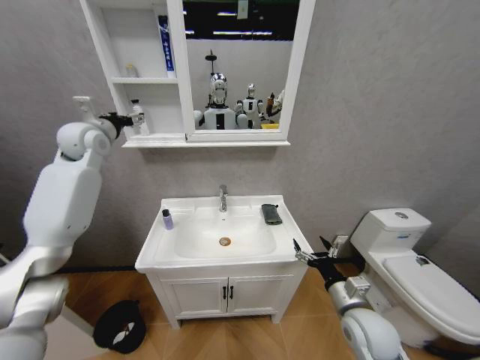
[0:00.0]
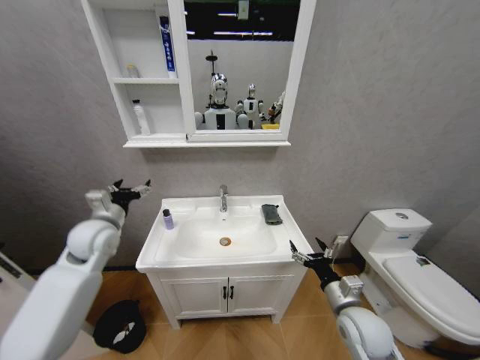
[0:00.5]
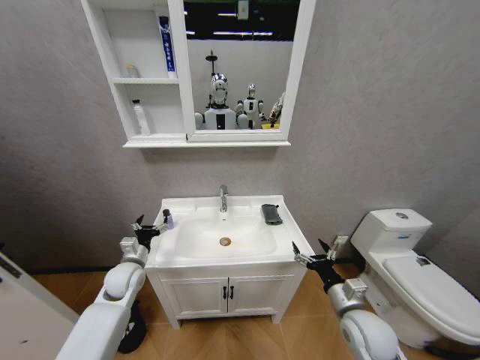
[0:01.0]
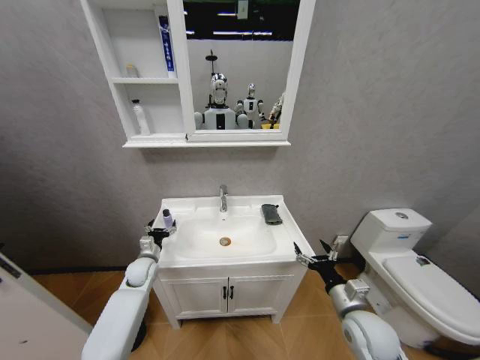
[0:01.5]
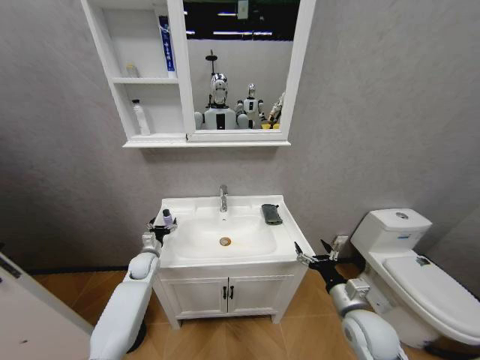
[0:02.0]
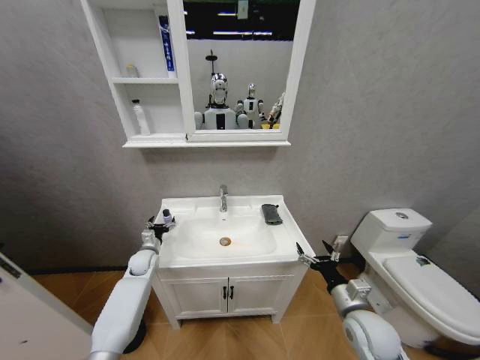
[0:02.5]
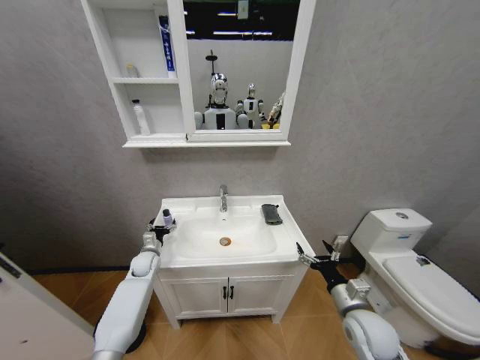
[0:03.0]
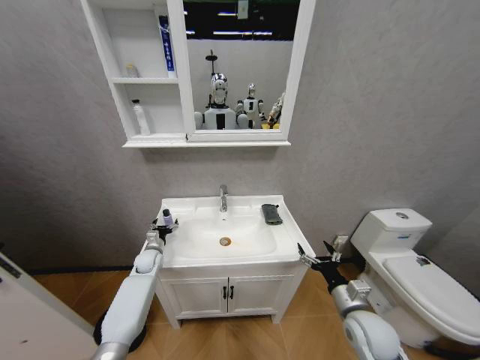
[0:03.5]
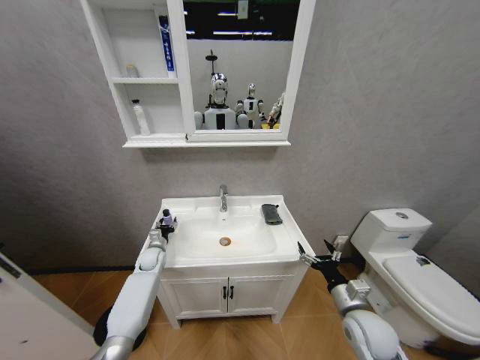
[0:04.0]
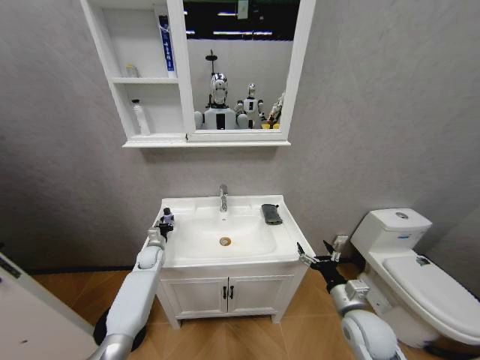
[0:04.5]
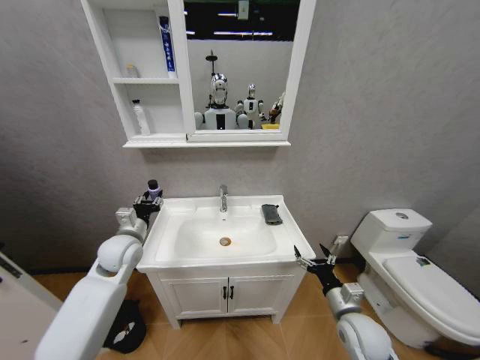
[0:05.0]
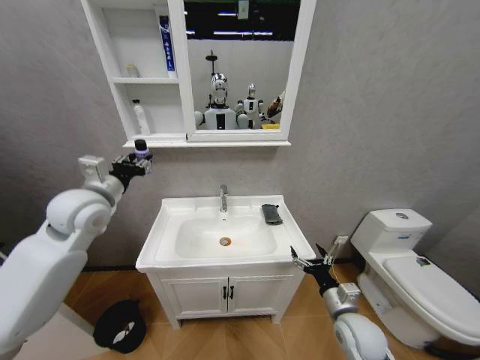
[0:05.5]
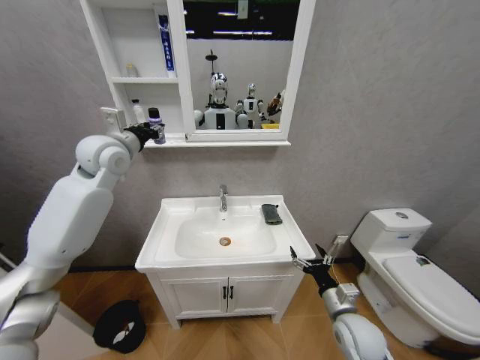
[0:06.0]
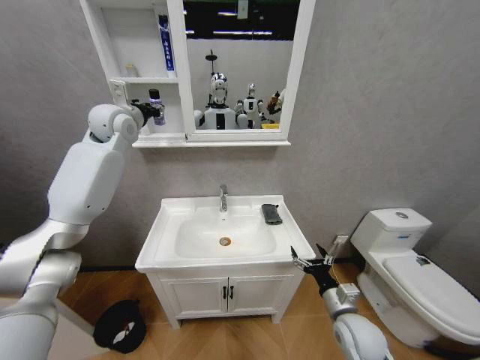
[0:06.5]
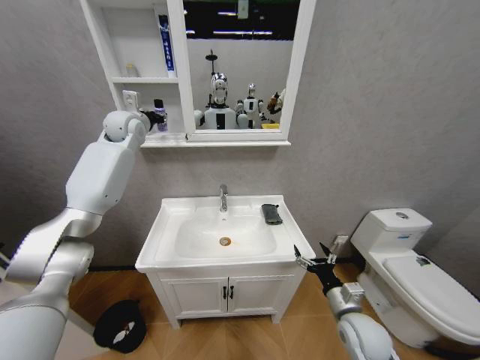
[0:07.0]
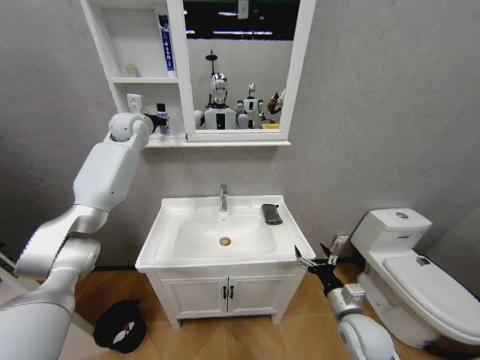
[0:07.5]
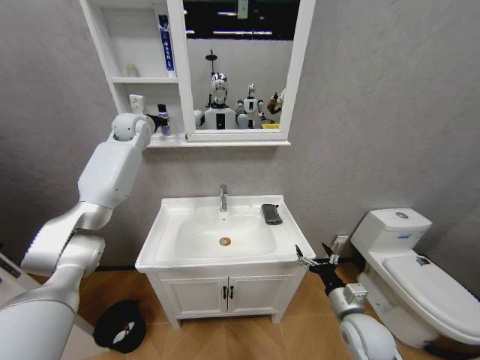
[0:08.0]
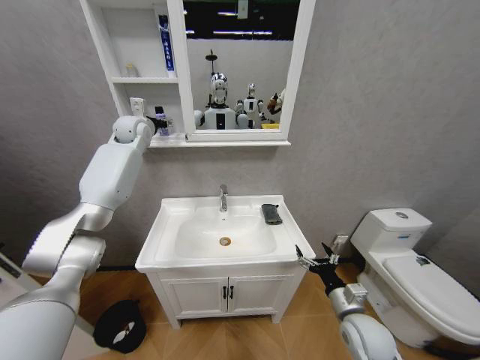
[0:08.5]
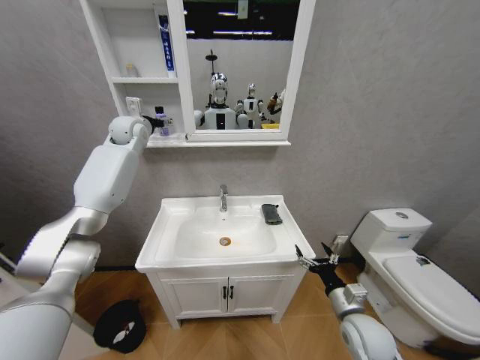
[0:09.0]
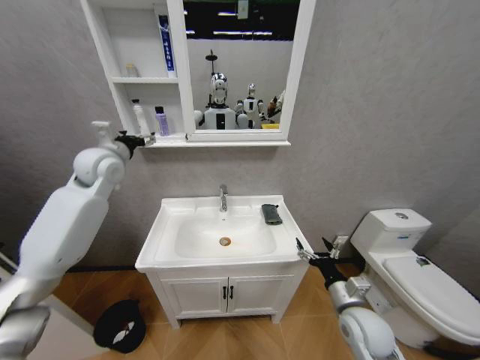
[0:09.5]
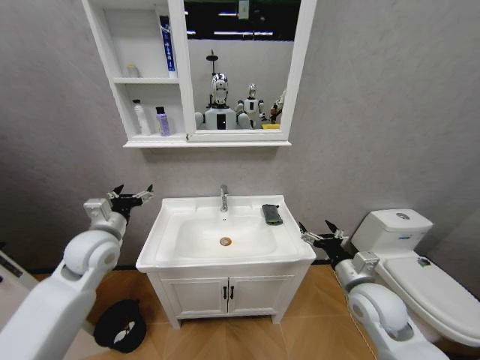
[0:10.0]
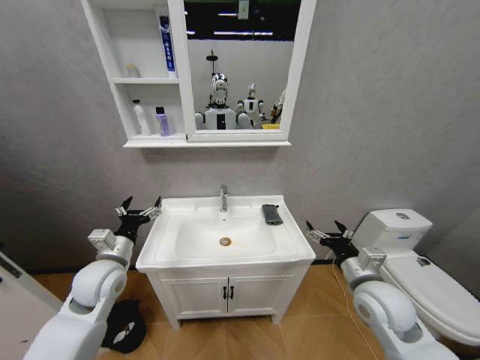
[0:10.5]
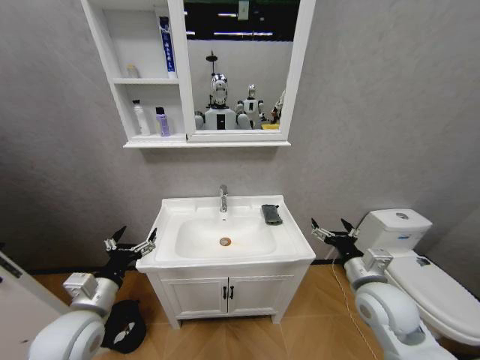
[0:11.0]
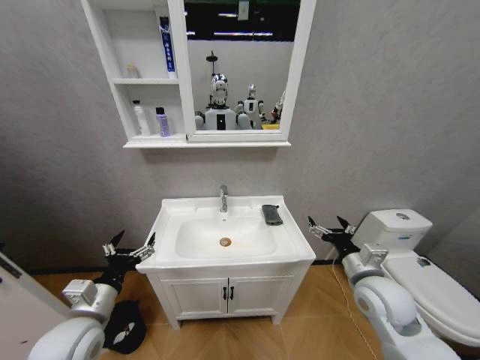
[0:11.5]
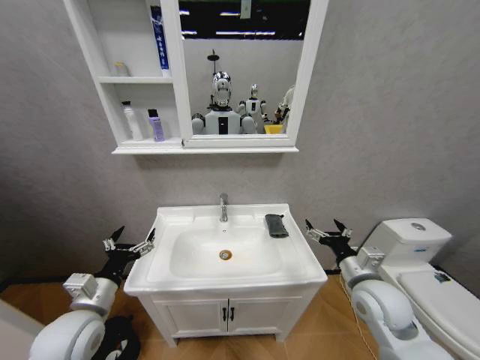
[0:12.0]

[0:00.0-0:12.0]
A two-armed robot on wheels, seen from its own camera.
Task of the whole recording: Move facial cleanser and shampoo from washbasin to cabinet, then wipe washbasin with towel.
0:00.0 to 0:02.0: The left gripper shifts some 40 cm downward.
0:02.0 to 0:04.0: The left gripper closes.
0:04.0 to 0:06.0: The left gripper moves upward, about 40 cm, and closes.
0:06.0 to 0:08.0: The left gripper shifts some 15 cm forward.
0:08.0 to 0:10.0: The left gripper shifts roughly 35 cm backward and downward, and opens. Meanwhile the right gripper shifts about 10 cm upward.
0:10.0 to 0:12.0: The left gripper is displaced backward and downward by some 15 cm.

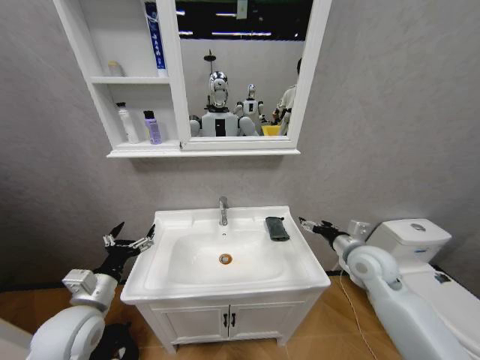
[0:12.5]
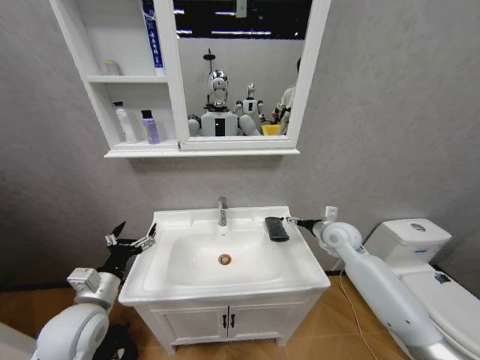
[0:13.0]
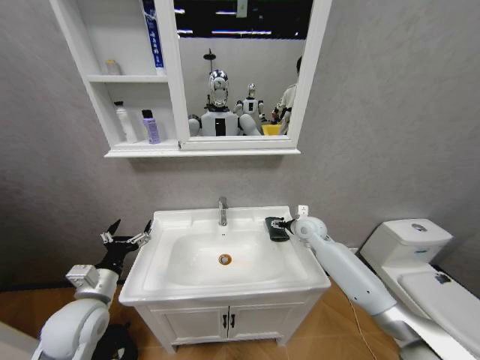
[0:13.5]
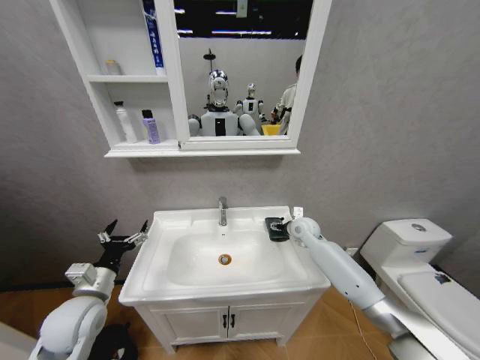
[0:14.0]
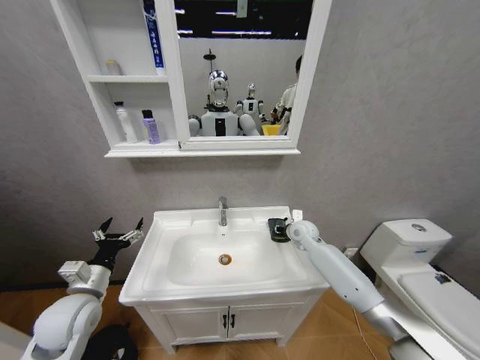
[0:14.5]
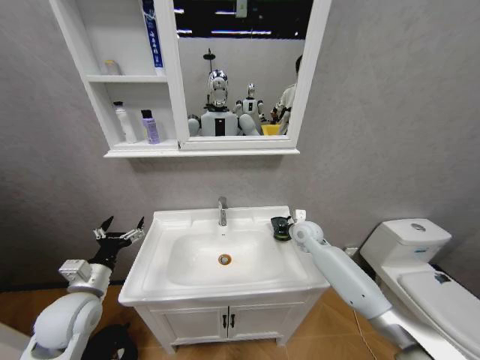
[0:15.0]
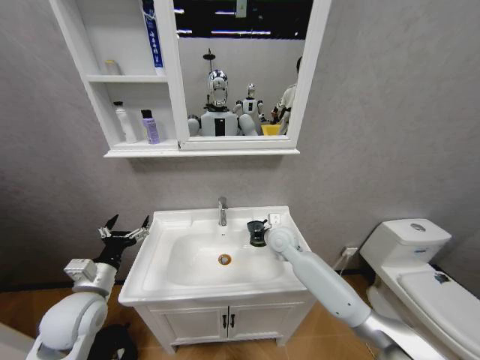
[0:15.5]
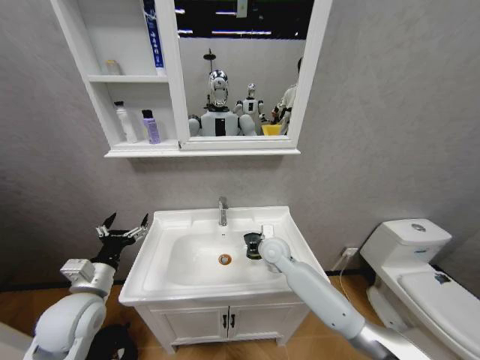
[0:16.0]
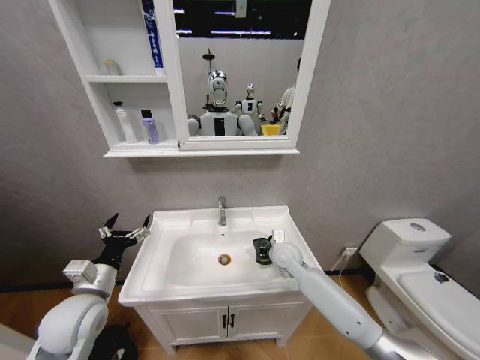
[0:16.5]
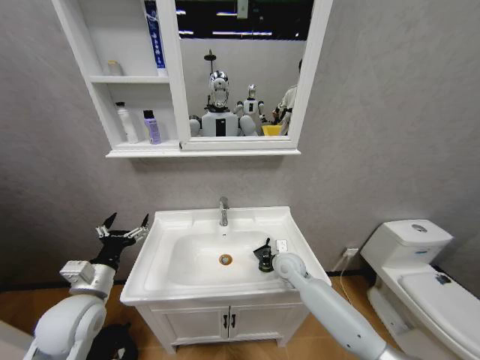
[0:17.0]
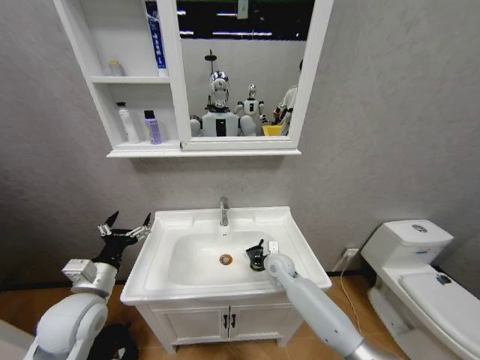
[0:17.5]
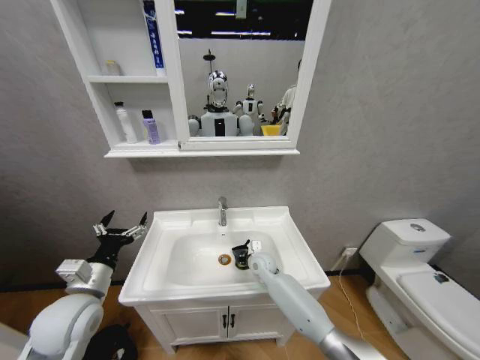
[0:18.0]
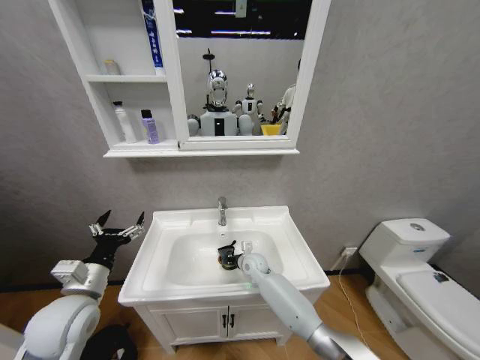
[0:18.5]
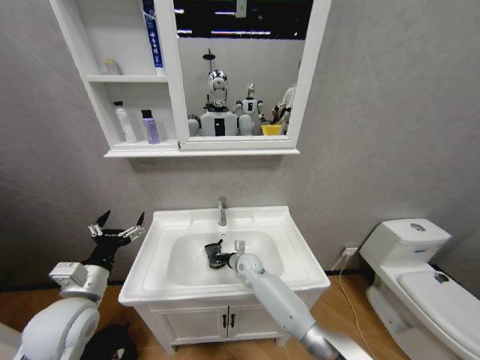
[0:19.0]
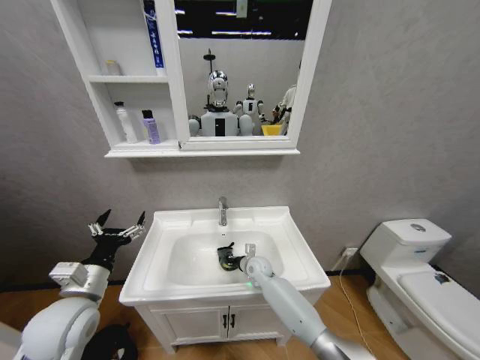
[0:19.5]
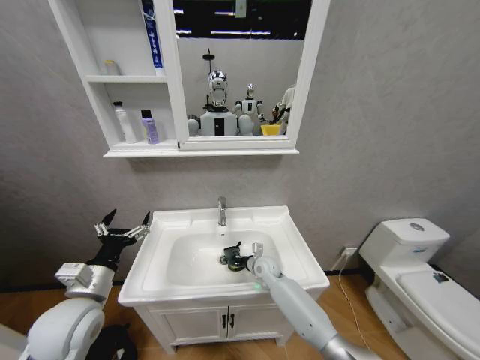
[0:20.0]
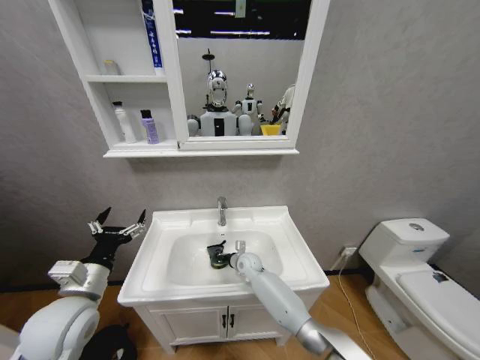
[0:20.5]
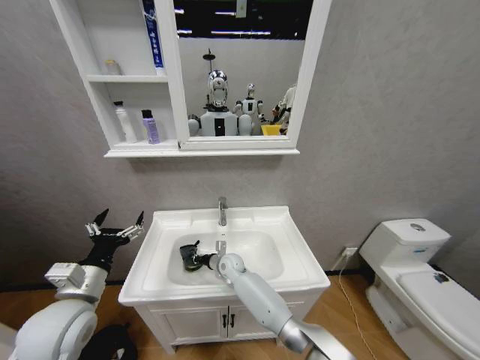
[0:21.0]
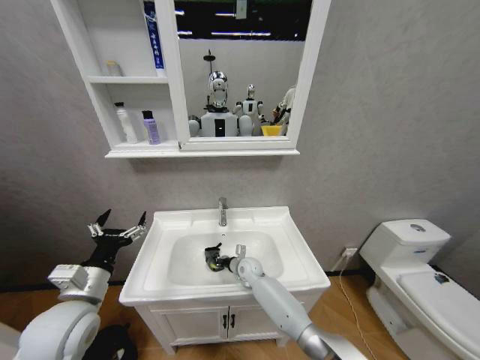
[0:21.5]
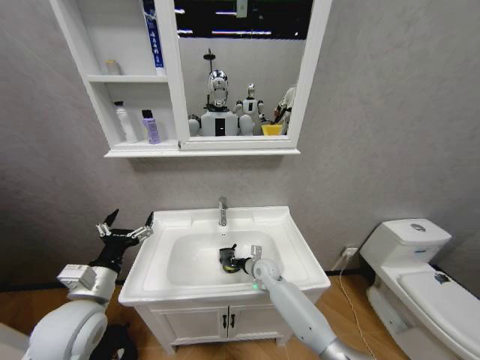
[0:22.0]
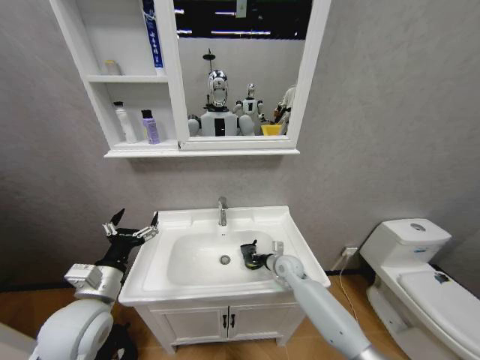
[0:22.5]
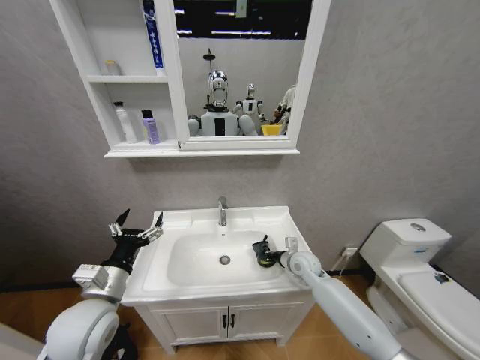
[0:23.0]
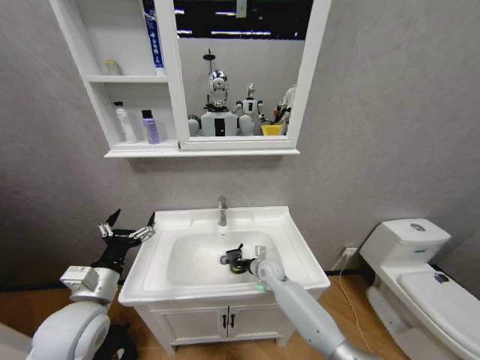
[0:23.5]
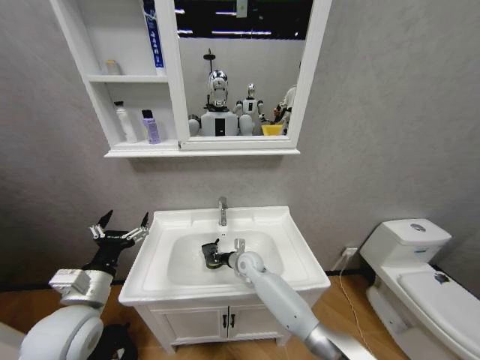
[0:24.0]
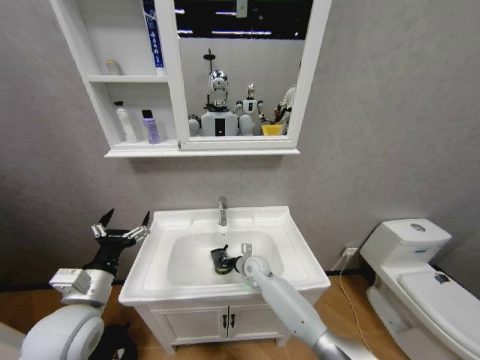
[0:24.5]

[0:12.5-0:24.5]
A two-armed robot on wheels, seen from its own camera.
Task of the whole recording: Move facial cleanser and shampoo from washbasin to cabinet, then wipe washbasin with towel.
0:12.5 to 0:14.5: The right gripper is displaced forward and to the left by some 20 cm, and closes.
0:14.5 to 0:16.5: The right gripper heads to the left and backward, covering roughly 10 cm.
0:16.5 to 0:18.5: The right gripper is displaced downward and to the left by approximately 15 cm.
0:18.5 to 0:20.5: The grippers move only a little.
0:20.5 to 0:22.5: The right gripper heads to the right, covering some 15 cm.
0:22.5 to 0:24.5: The right gripper shifts about 10 cm to the left.

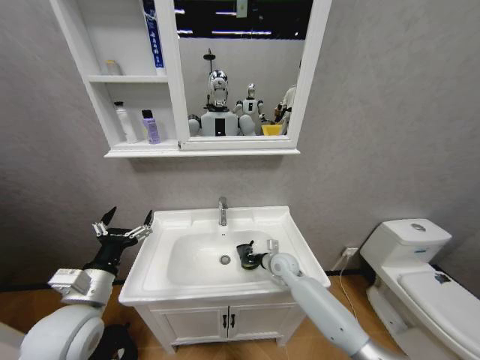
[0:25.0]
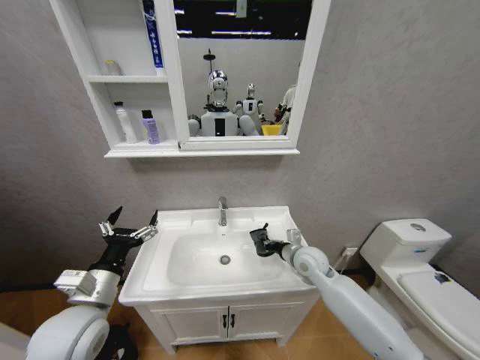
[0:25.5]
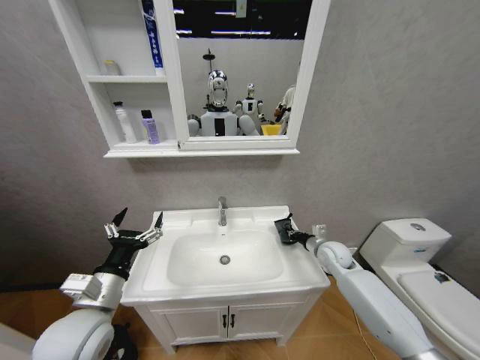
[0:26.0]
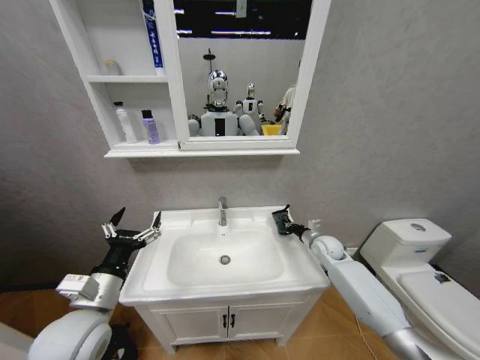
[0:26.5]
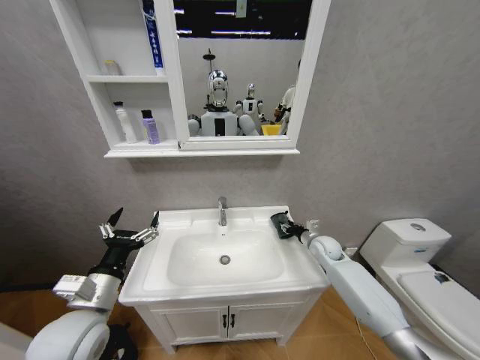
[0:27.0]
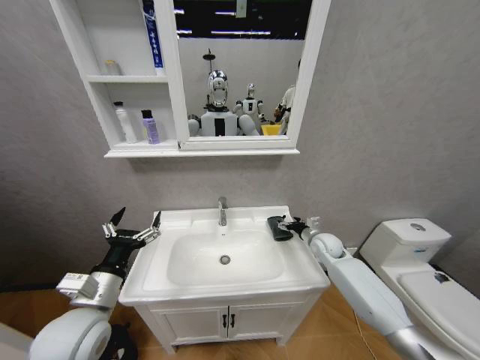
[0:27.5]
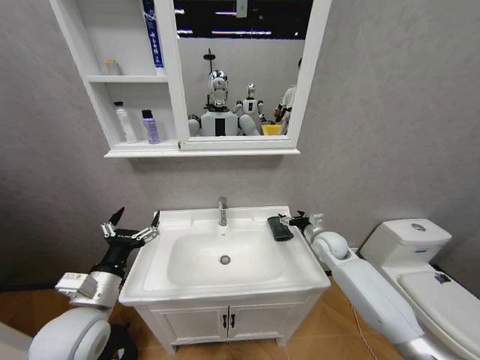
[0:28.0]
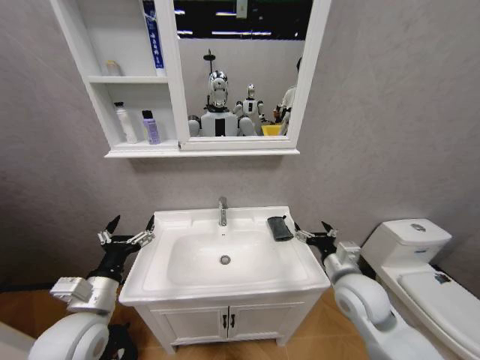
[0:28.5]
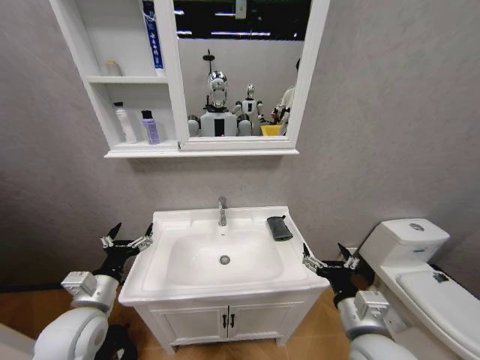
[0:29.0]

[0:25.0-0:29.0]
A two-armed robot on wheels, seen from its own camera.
Task of the whole recording: Move facial cleanser and shampoo from washbasin to cabinet, then wipe washbasin with towel.
0:25.0 to 0:27.0: The right gripper travels to the right by some 15 cm, and opens up.
0:27.0 to 0:29.0: The left gripper moves about 5 cm. The right gripper goes about 30 cm backward, and opens.
